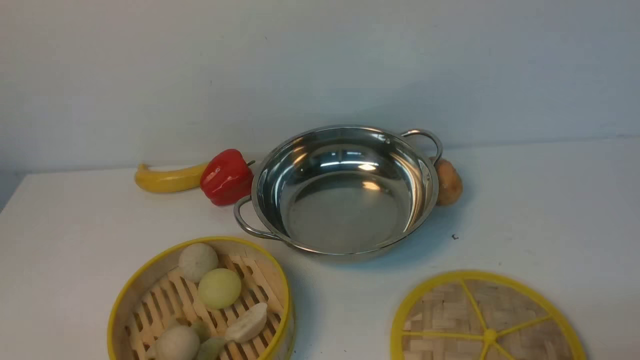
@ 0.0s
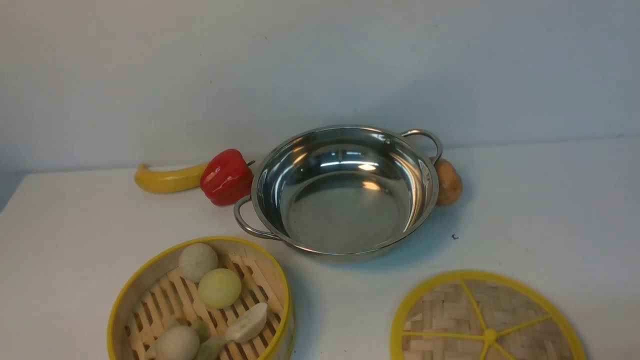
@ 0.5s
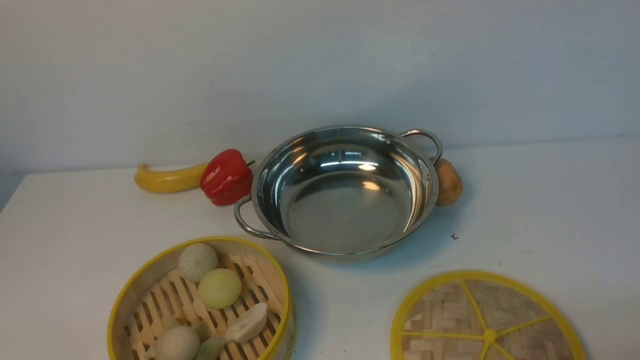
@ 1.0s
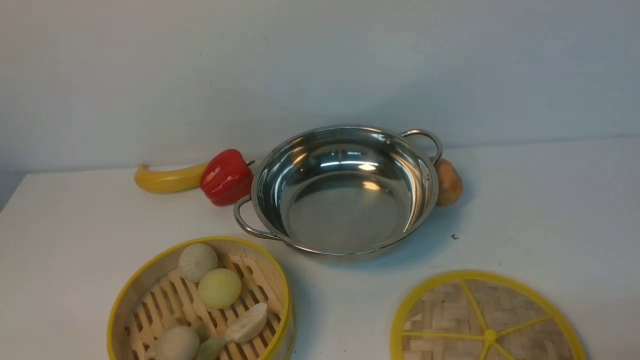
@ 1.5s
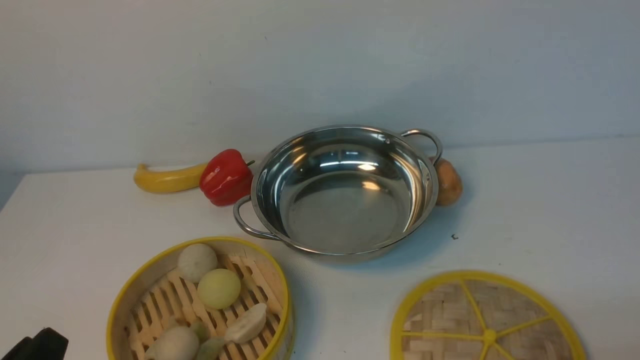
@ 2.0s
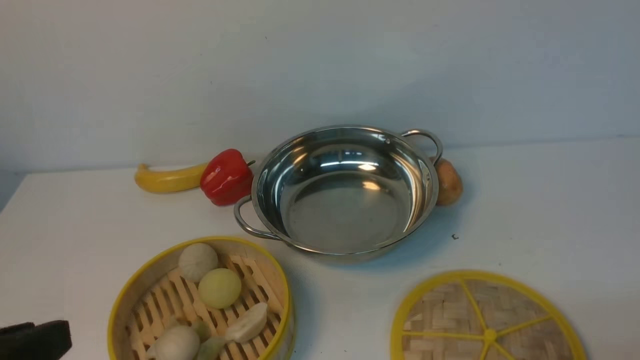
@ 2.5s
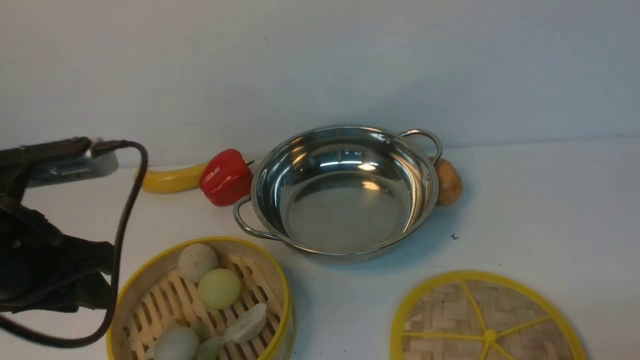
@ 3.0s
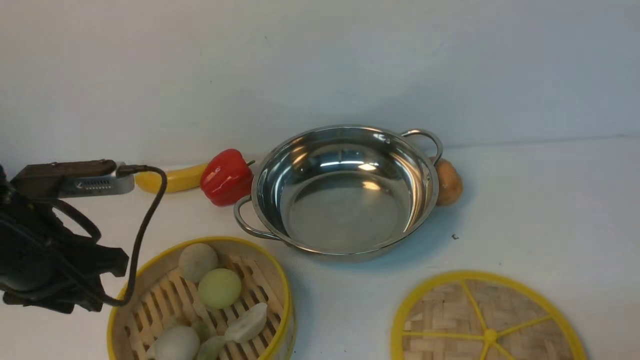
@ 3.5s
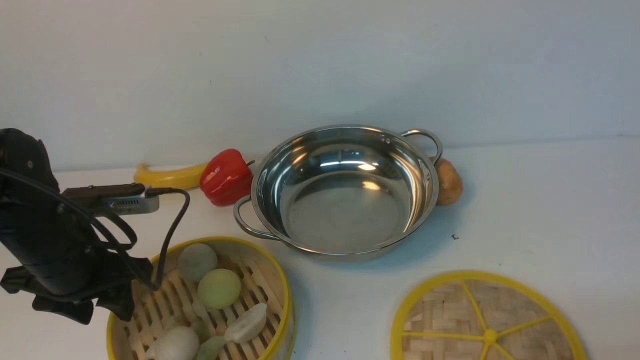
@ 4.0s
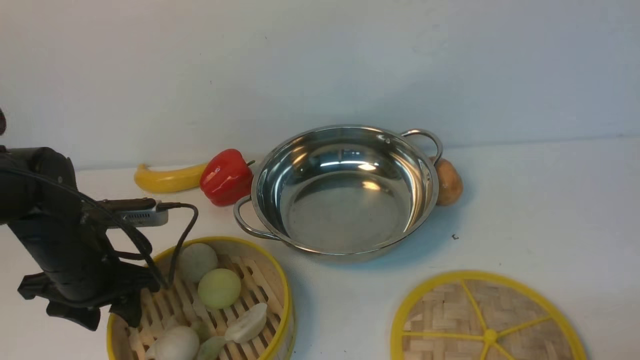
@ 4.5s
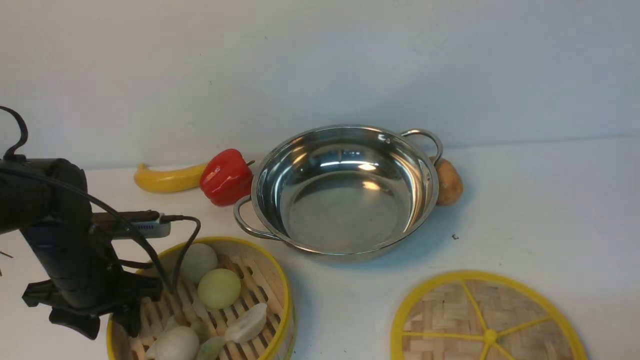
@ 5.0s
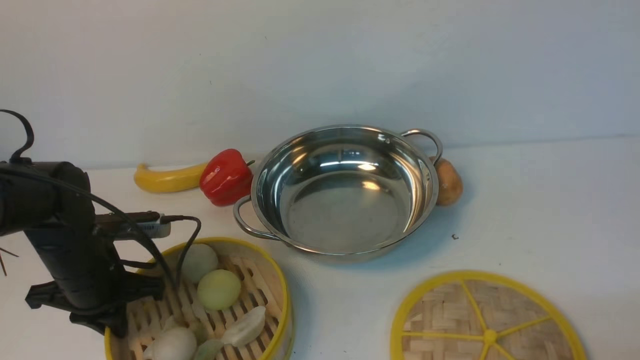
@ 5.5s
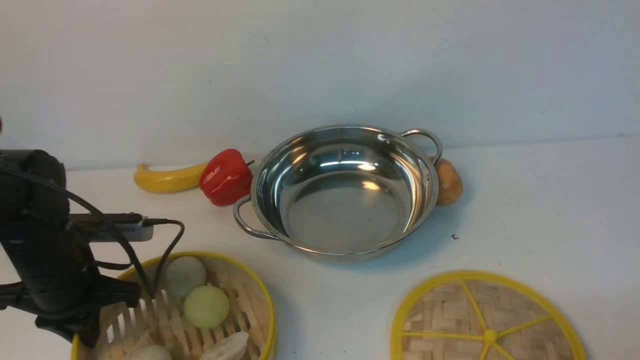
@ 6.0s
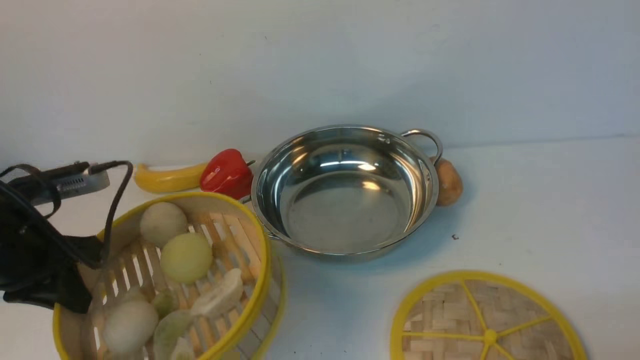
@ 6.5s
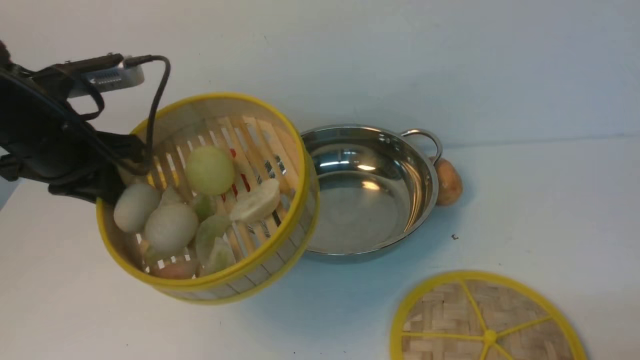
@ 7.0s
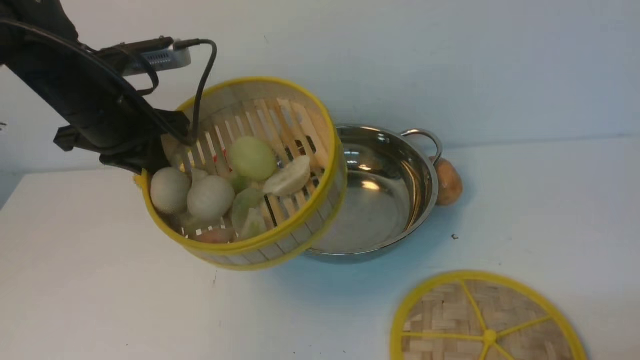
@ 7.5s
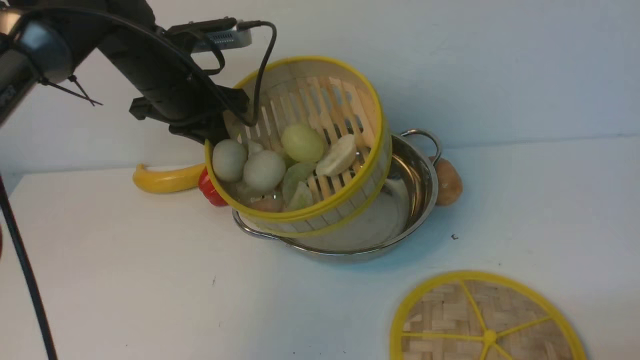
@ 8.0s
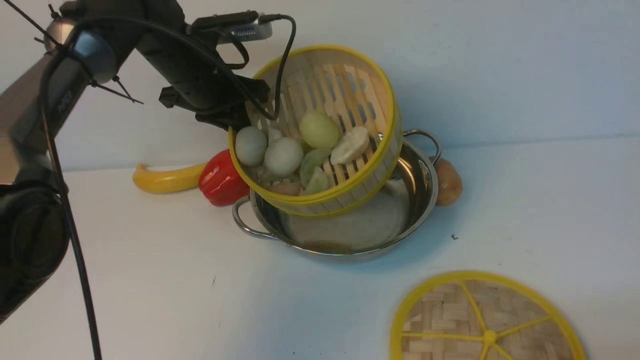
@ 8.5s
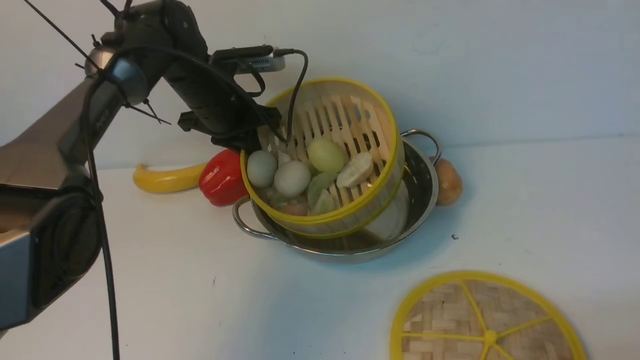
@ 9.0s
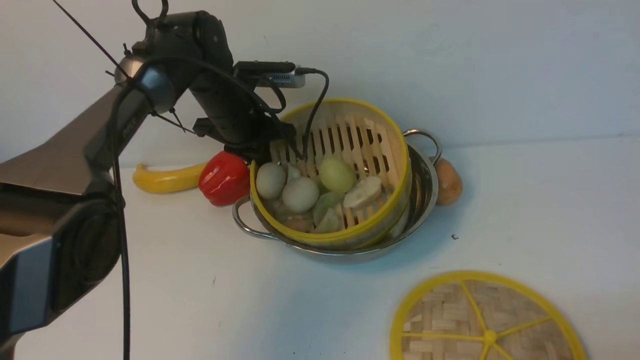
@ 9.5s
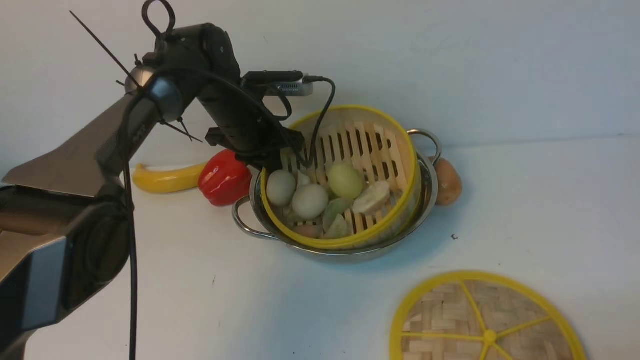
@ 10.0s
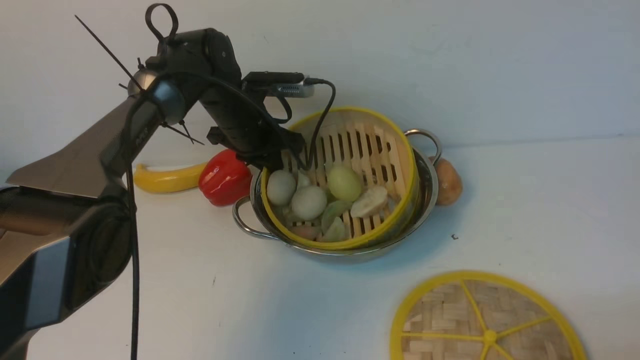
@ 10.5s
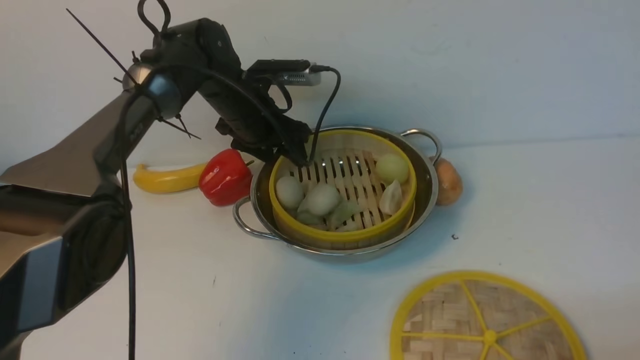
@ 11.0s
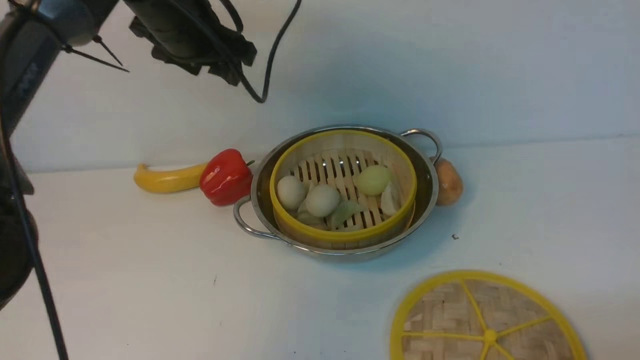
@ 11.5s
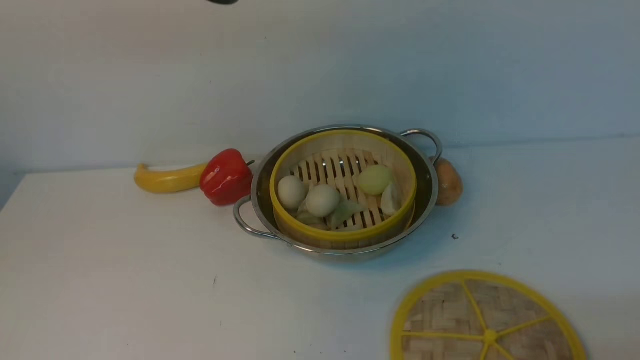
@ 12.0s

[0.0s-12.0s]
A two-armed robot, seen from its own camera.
Task of the whole recording: place the steamer in the pot on the white table, and put the lid on the steamer.
Step, 0.0s to 6.5s: use the left arm to lift the steamer closest to it.
Step, 7.0s to 11.5s: use the left arm to put the steamer into the iron steamer pot in the middle.
0.0s to 2.0s: The left gripper shifts some 5 cm upward.
2.0s to 4.0s: The left gripper is displaced forward by some 25 cm.
4.0s to 6.0s: The left gripper closes.
6.0s to 8.0s: The left gripper moves forward, upward and to the right, approximately 20 cm.
8.0s to 10.0s: The left gripper goes some 10 cm downward, forward and to the right.
10.0s to 12.0s: The left gripper travels upward and backward by some 30 cm, and opens, then closes again.

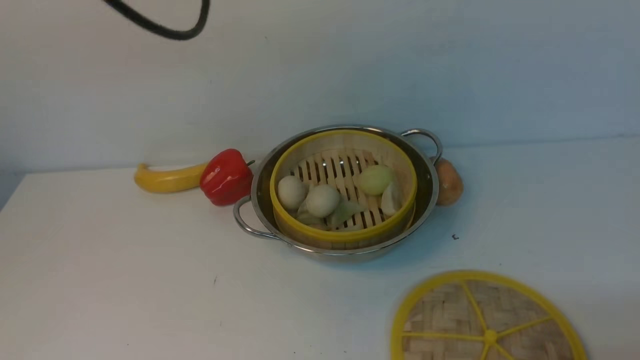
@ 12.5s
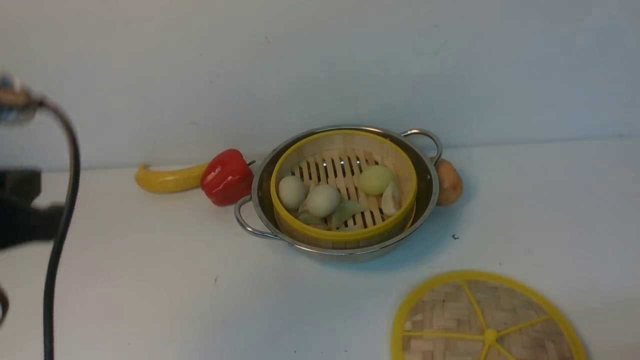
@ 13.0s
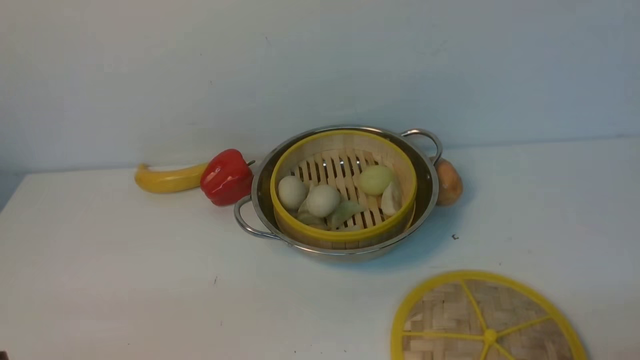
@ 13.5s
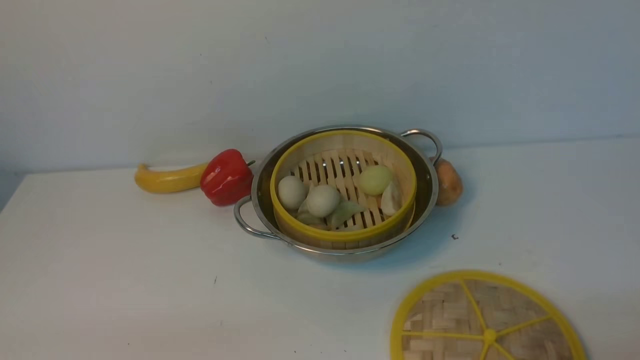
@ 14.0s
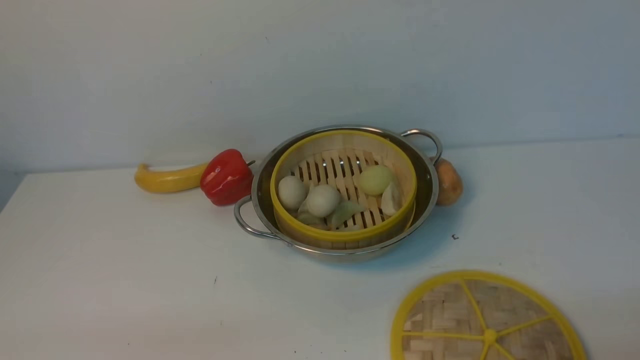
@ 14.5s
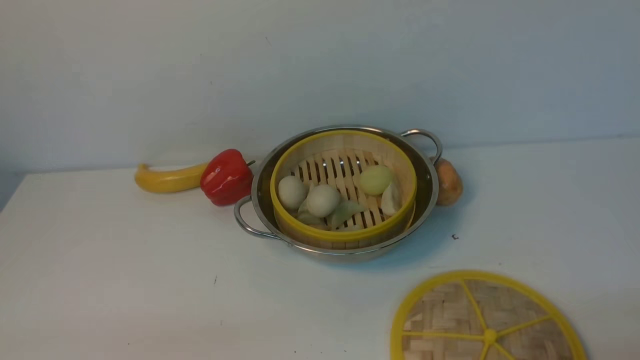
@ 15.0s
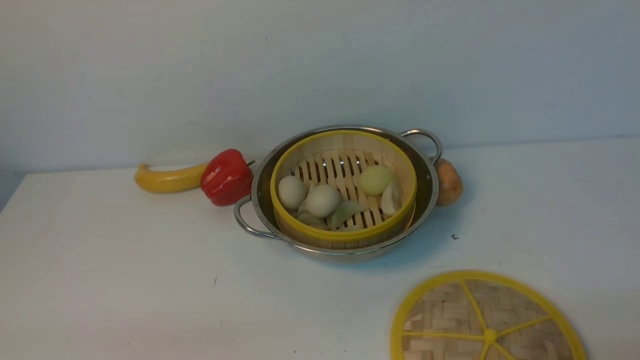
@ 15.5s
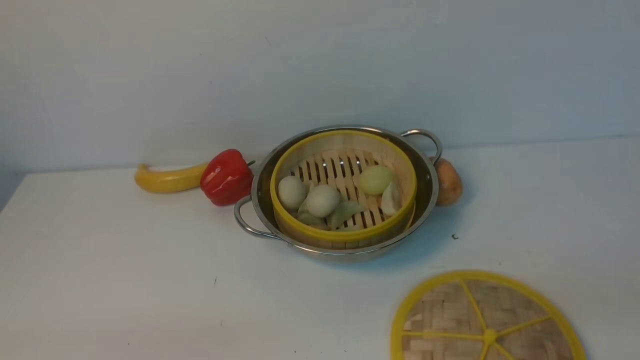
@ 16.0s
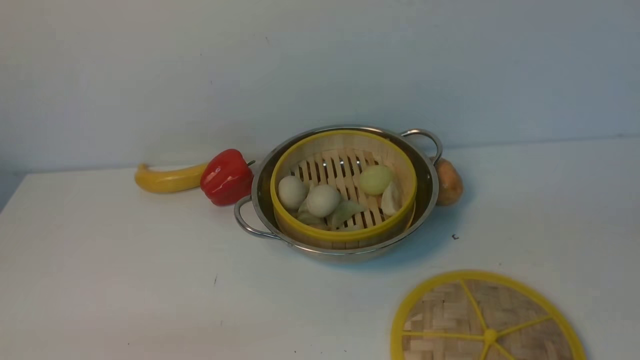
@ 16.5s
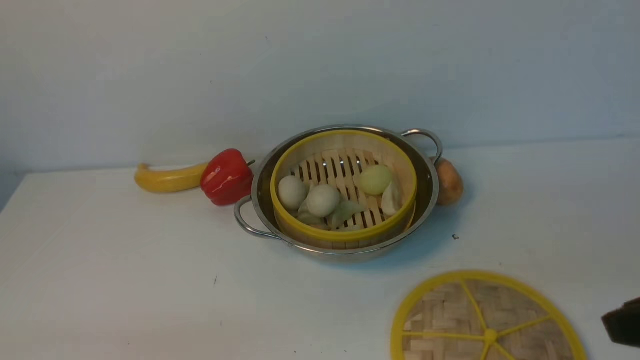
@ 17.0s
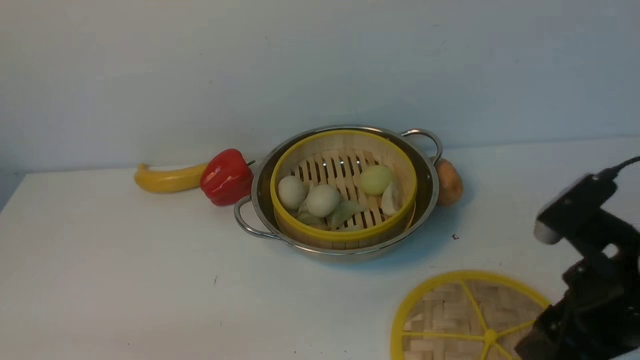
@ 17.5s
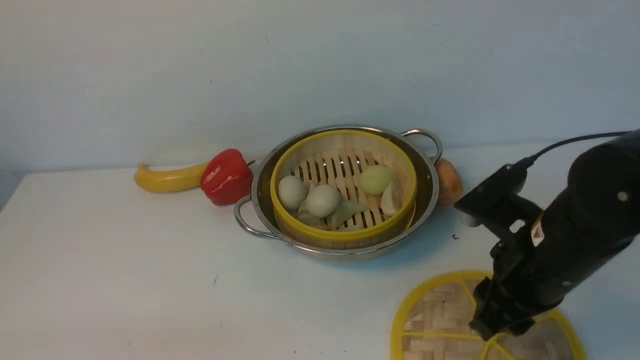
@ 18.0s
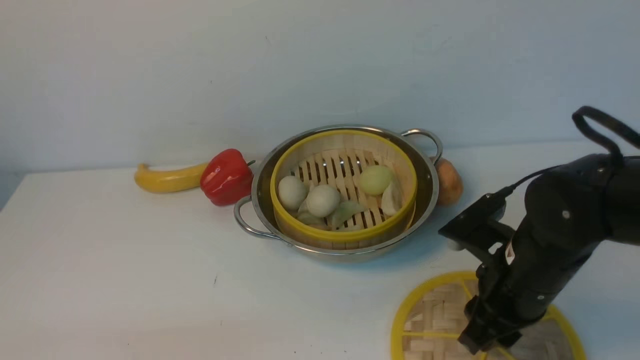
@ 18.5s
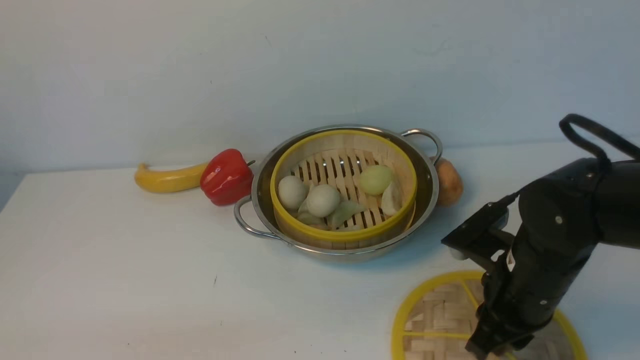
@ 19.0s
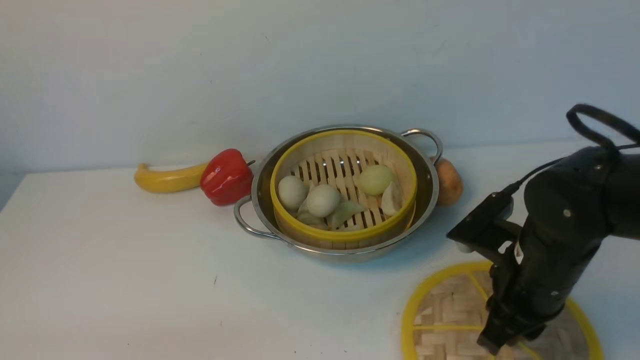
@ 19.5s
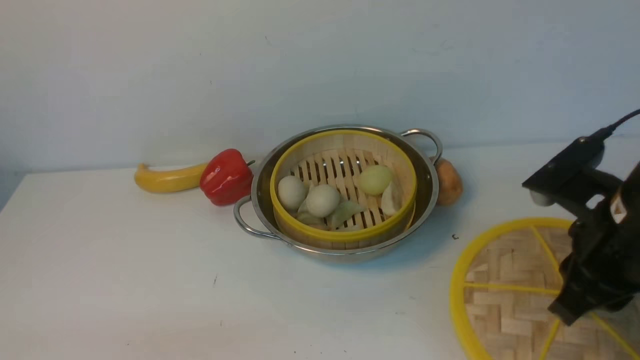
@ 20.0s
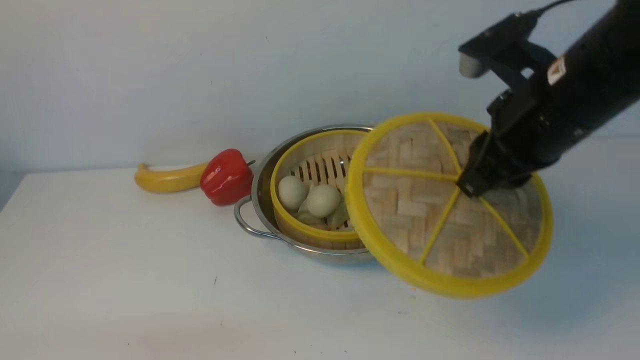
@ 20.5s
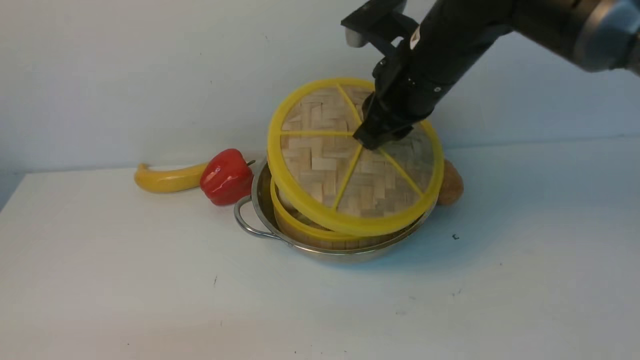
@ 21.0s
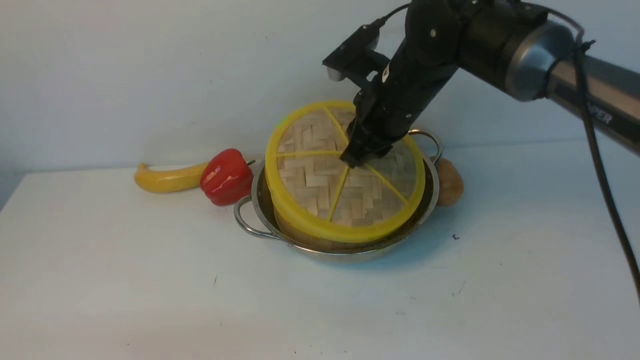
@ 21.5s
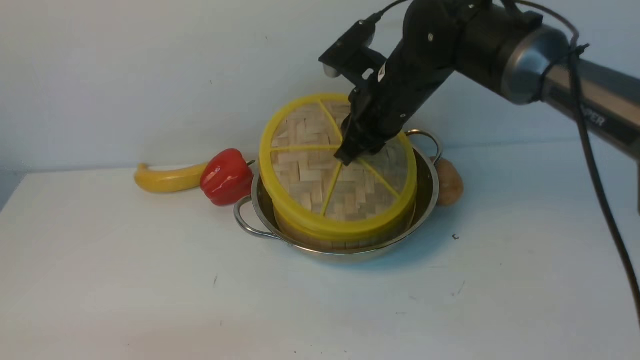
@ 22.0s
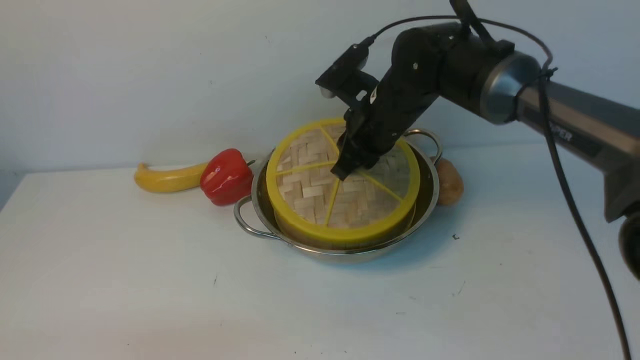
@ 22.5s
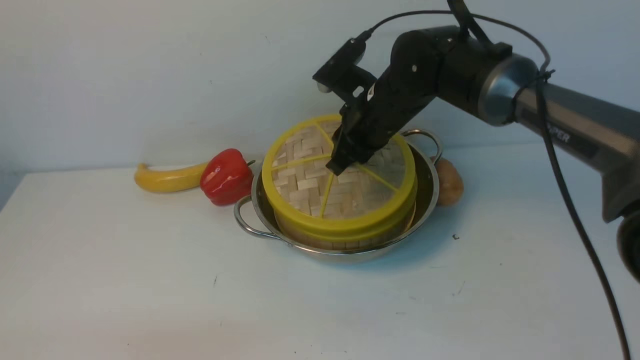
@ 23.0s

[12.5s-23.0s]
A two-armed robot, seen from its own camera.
Task of the whole recording: place the steamer in the pot on the white table, and put the lid on the steamer.
Step, 12.5s to 20.0s: use the right arm to lift the lid of the steamer.
12.5s to 14.5s: The left gripper travels downward and backward by roughly 40 cm.
16.5s to 19.0s: The right gripper moves forward, downward and to the left, roughly 25 cm, and opens and closes again.
19.0s to 21.0s: The right gripper moves upward, forward and to the left, about 20 cm.
21.0s to 23.0s: The right gripper shifts some 10 cm downward and forward.
